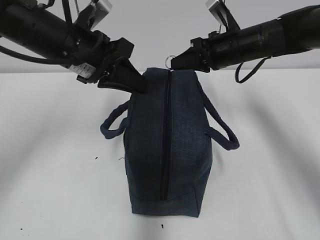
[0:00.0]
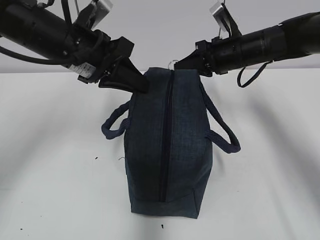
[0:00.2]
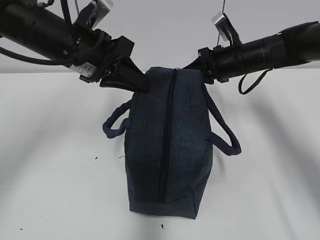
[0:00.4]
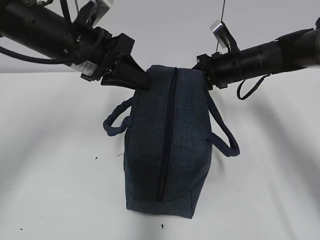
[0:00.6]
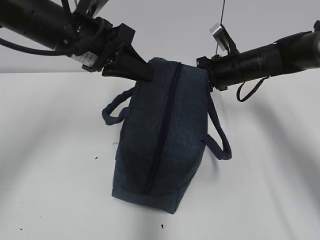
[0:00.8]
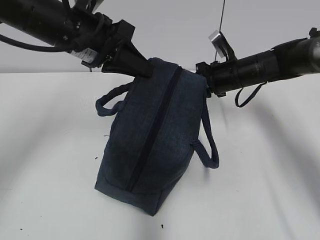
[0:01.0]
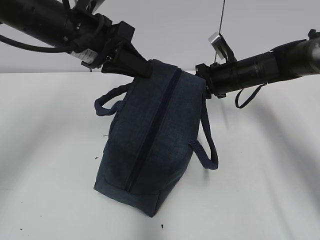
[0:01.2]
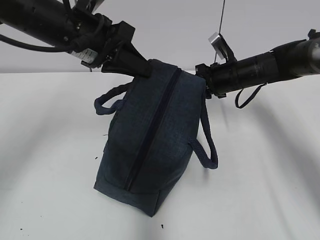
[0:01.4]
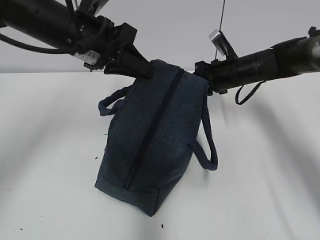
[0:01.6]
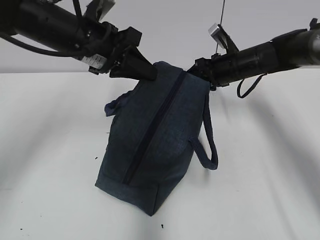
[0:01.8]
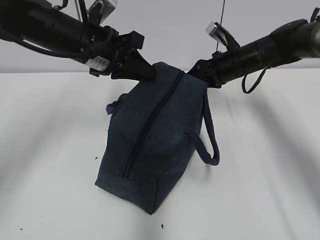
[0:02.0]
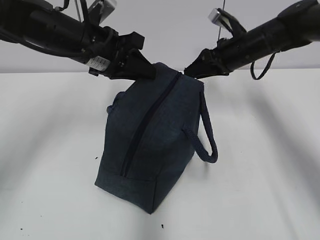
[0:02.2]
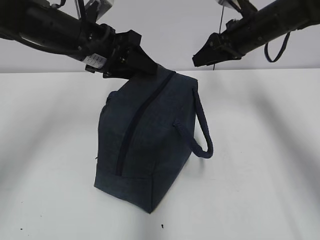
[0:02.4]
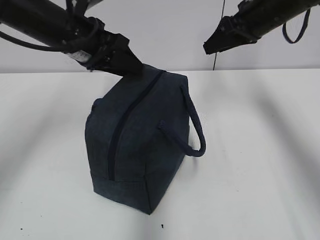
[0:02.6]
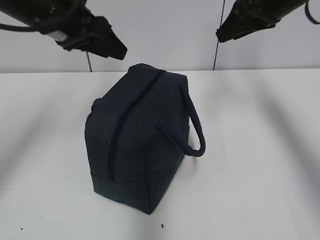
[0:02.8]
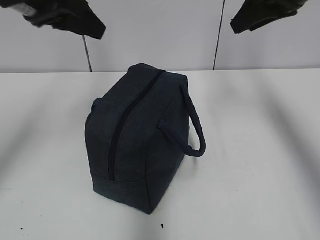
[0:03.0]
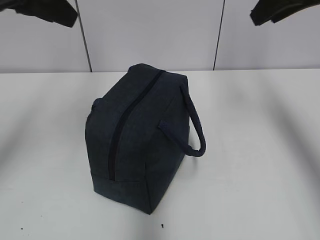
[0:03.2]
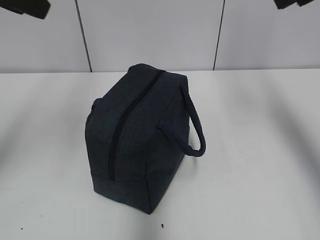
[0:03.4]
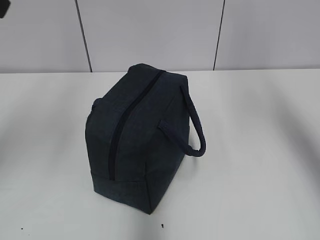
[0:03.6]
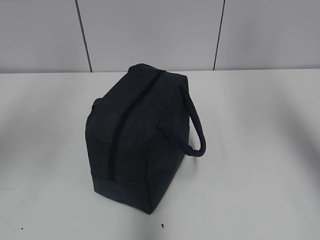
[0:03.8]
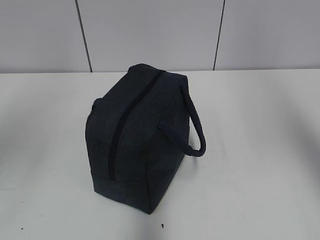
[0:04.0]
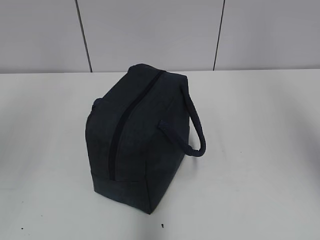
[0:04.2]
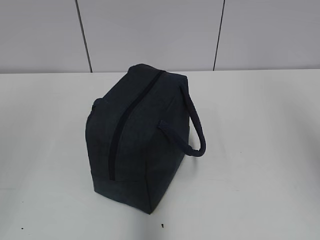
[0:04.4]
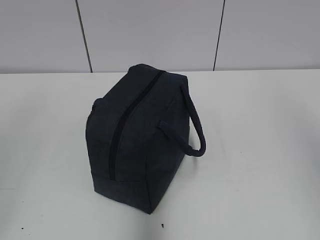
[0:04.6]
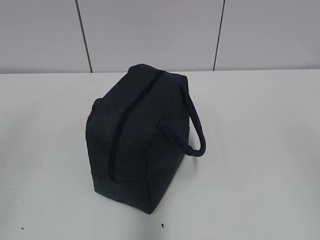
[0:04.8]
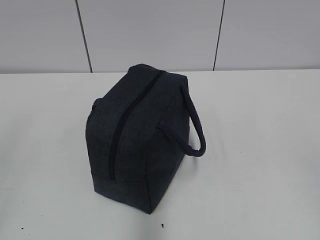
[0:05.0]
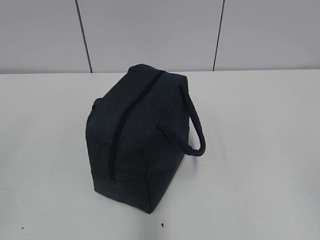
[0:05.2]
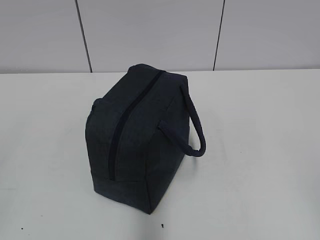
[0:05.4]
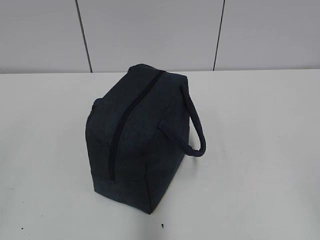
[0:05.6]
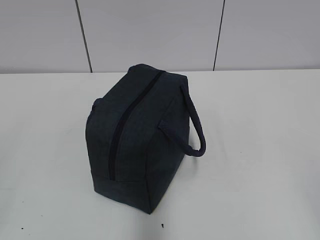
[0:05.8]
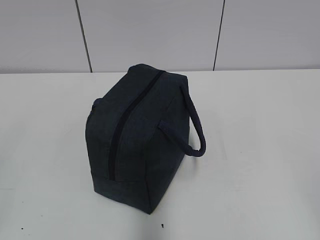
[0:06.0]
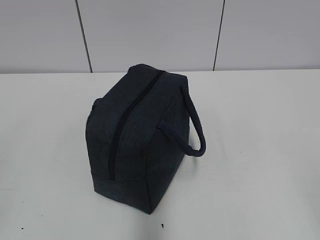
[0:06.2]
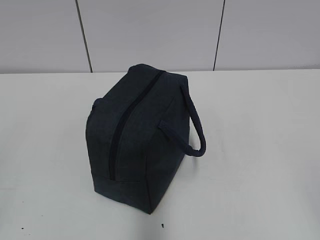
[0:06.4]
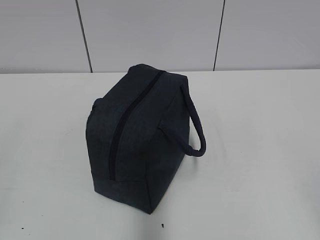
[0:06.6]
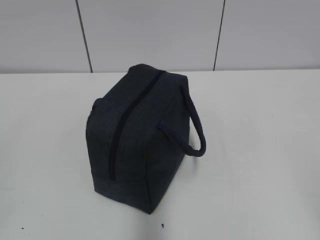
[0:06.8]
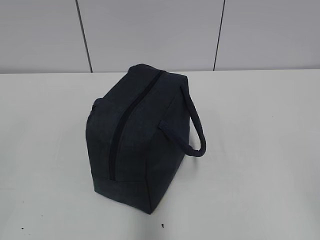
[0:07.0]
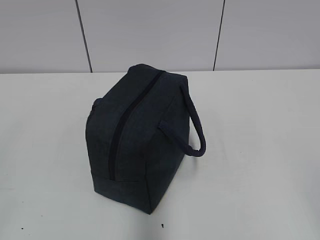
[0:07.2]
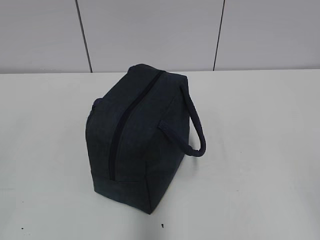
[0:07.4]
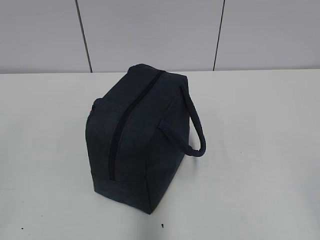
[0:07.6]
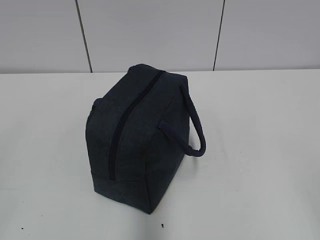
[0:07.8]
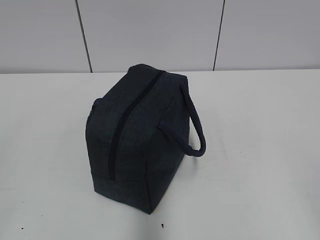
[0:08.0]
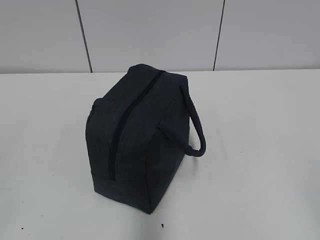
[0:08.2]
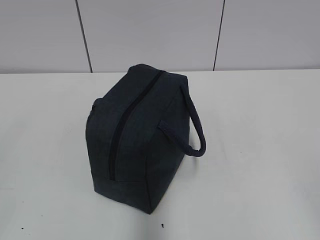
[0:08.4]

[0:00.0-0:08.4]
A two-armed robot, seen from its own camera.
0:00.0 to 0:01.4: The right gripper moves downward, about 5 cm.
0:01.4 to 0:02.8: The right gripper moves upward, roughly 20 cm, and opens, while the left gripper ends up about 5 cm from where it was, and opens.
0:02.8 to 0:04.2: The left gripper is displaced backward, upward and to the left by some 30 cm, while the right gripper goes approximately 35 cm backward and upward.
0:04.2 to 0:05.6: The right gripper is displaced downward and backward by about 30 cm.
0:07.0 to 0:08.4: Both grippers stay about where they are.

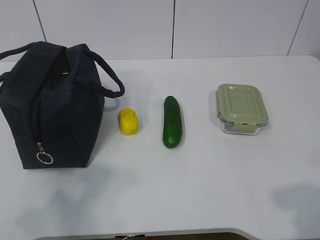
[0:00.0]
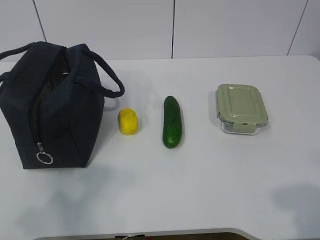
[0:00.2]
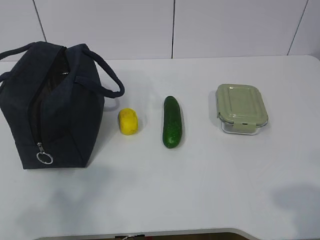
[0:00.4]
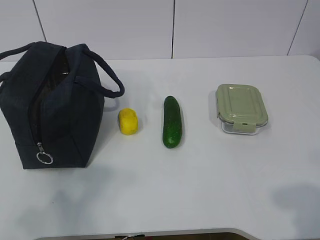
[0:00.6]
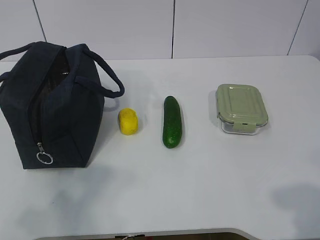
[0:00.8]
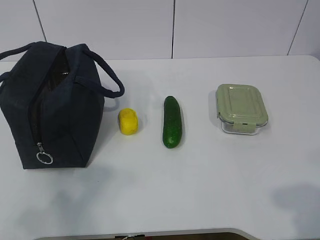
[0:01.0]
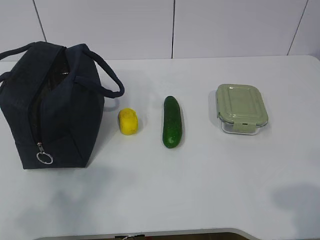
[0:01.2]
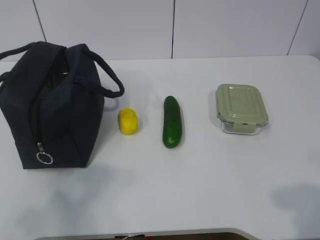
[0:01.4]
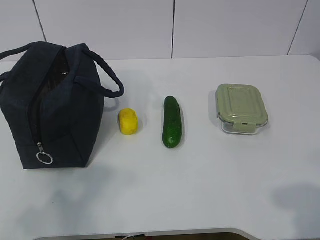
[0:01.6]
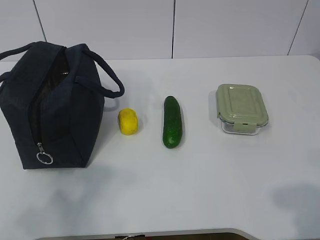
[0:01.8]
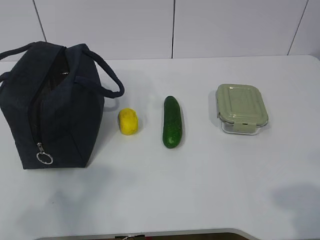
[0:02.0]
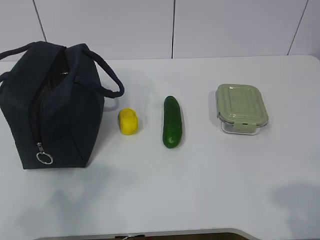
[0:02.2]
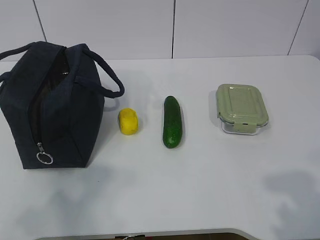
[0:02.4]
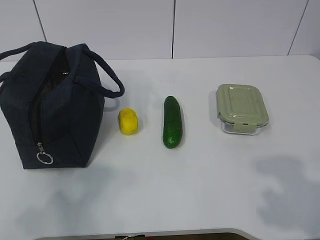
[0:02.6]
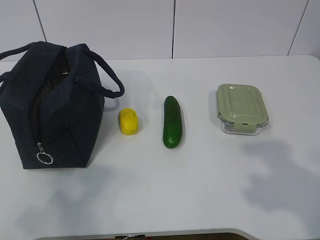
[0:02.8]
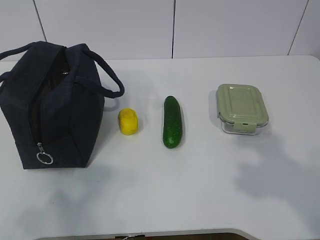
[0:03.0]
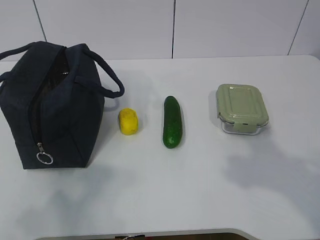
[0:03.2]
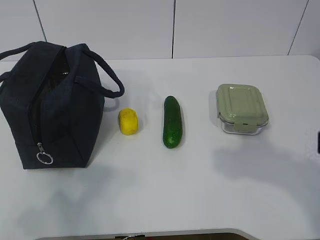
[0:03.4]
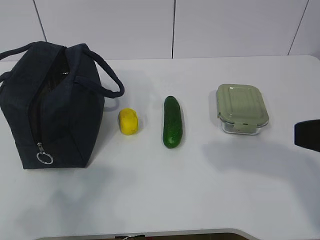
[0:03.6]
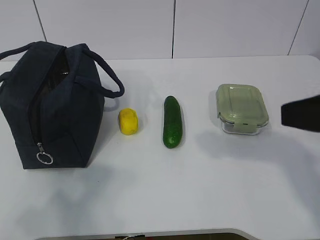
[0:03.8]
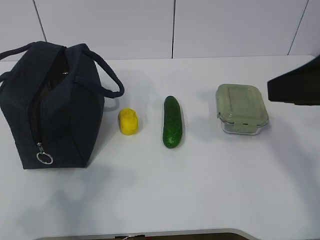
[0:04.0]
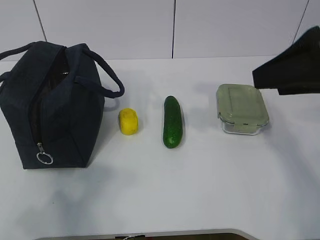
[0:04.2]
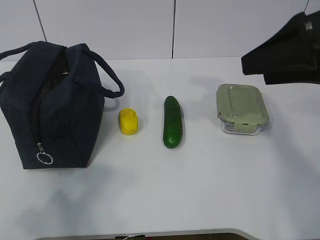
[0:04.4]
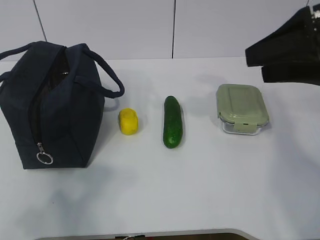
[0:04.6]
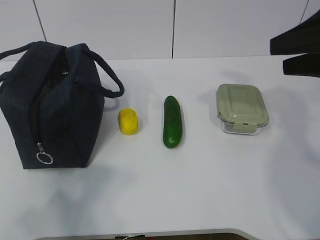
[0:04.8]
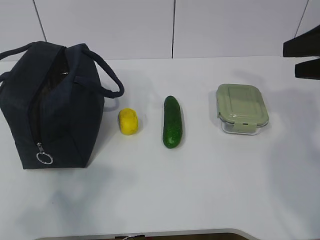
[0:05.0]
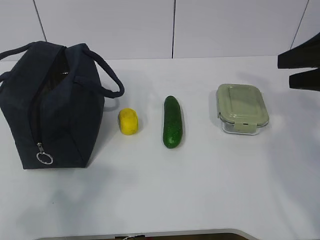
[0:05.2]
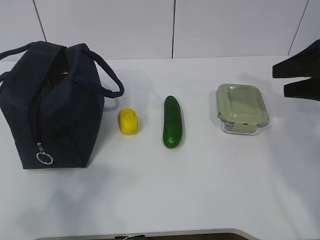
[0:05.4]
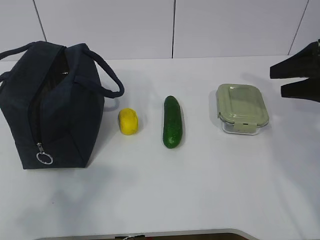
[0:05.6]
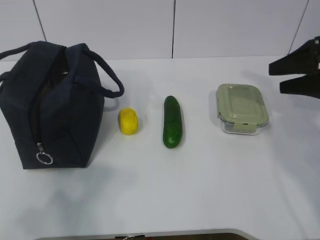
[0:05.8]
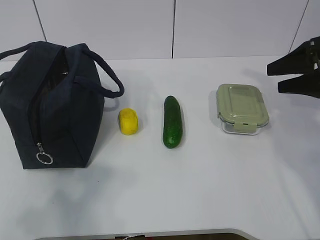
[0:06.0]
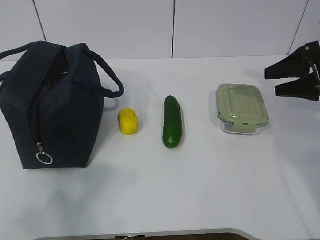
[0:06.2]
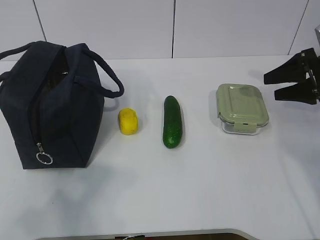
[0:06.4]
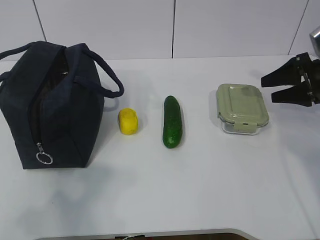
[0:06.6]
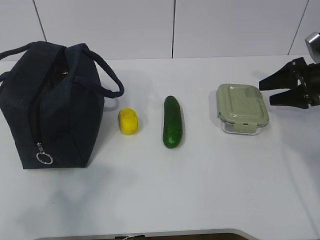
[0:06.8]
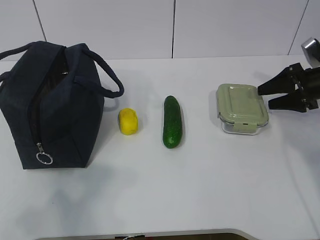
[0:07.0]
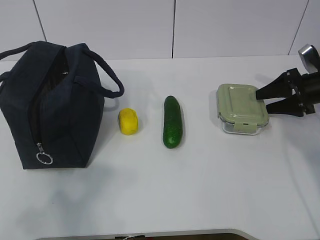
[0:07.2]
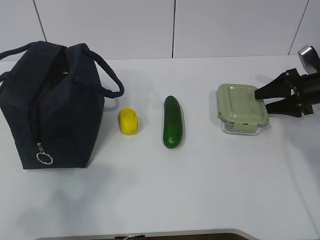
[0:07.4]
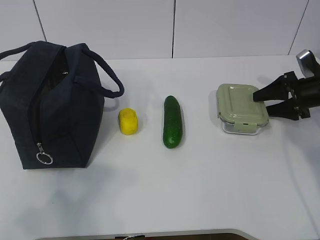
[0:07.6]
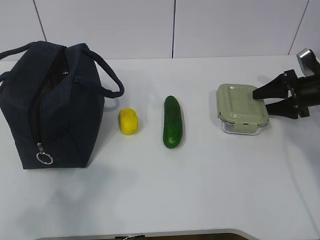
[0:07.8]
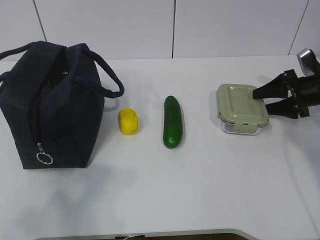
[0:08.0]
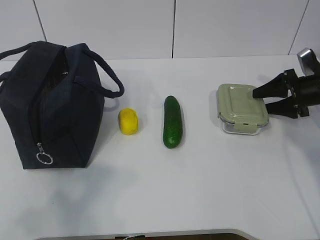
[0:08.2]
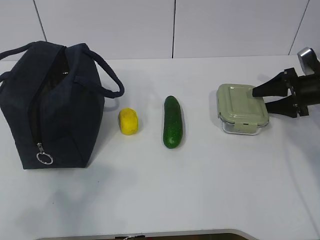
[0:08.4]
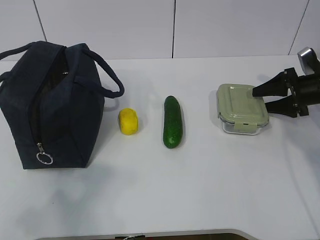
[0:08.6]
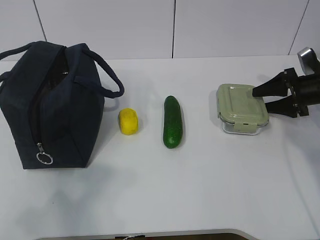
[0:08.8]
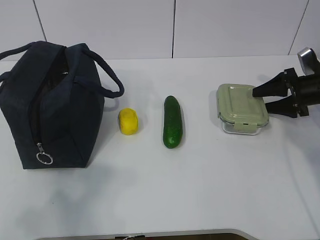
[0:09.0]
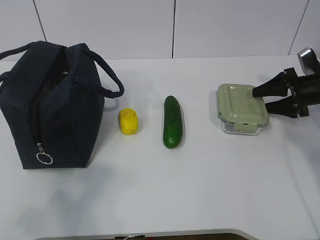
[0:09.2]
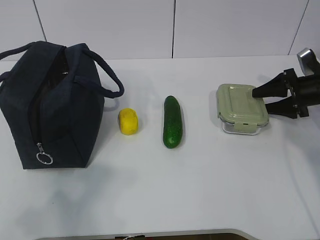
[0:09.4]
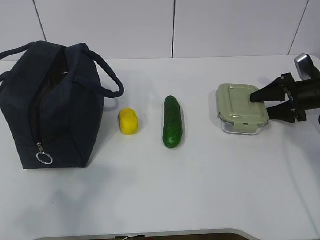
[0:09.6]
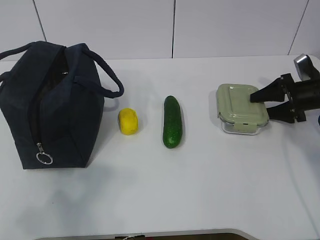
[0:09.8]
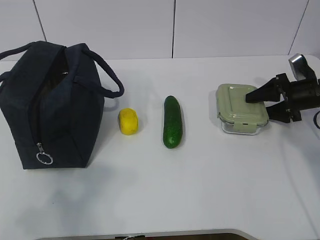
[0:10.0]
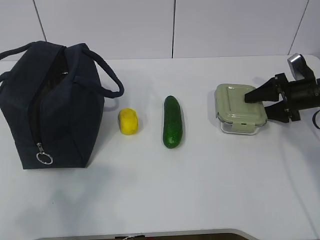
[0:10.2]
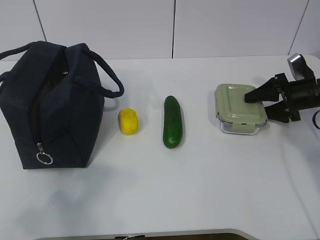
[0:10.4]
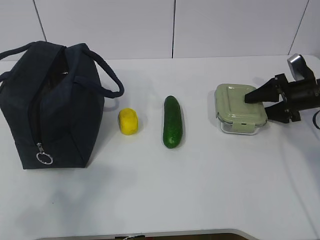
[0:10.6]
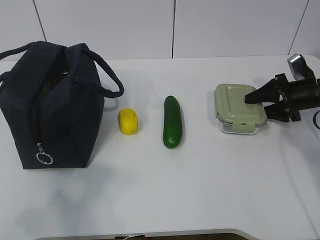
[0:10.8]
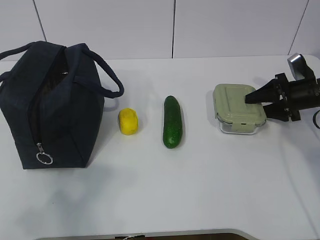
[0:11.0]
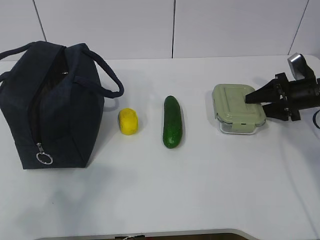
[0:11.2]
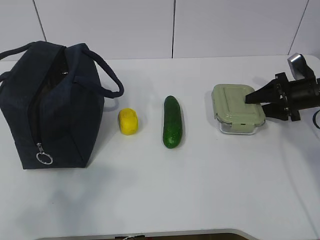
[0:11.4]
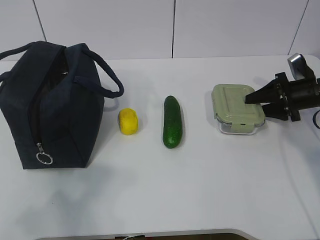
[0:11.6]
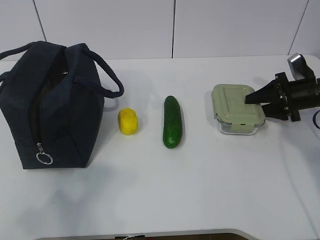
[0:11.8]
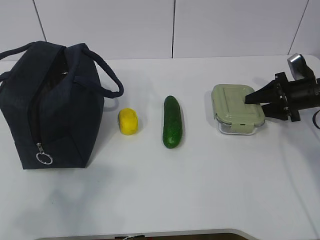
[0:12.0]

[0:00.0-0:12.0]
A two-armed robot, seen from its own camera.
Step, 0:00.0 to 0:11.6: Grab the lunch box with your right hand.
0:03.0 to 0:04.4: The right gripper is displaced forward by roughly 15 cm.
0:04.4 to 0:06.0: The right gripper shifts about 20 cm forward, to the right and downward.
0:06.0 to 0:07.6: The right gripper heads downward and forward, covering approximately 15 cm.
0:07.6 to 0:09.0: Both grippers stay about where they are.
0:09.0 to 0:10.4: There are only small adjustments of the grippers.
0:10.4 to 0:12.0: Neither gripper changes place.

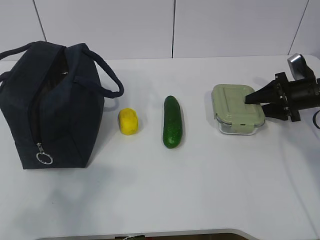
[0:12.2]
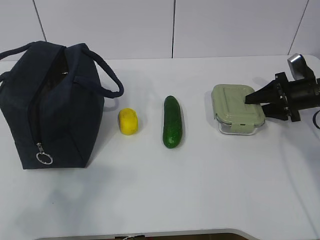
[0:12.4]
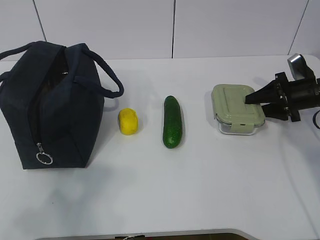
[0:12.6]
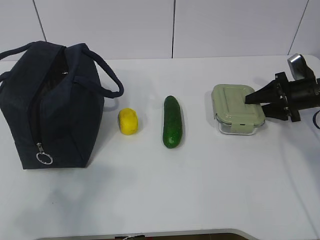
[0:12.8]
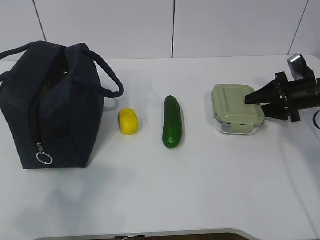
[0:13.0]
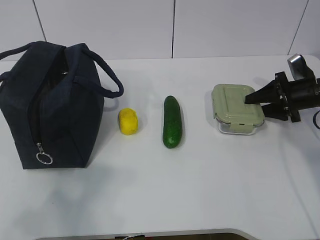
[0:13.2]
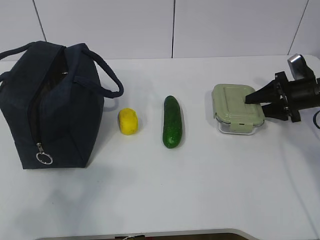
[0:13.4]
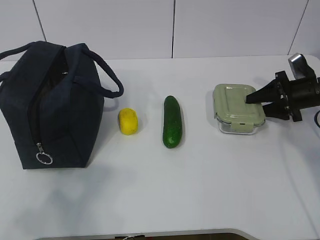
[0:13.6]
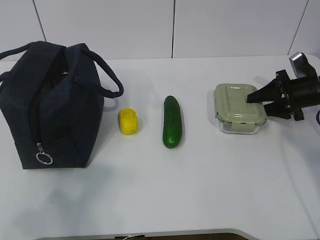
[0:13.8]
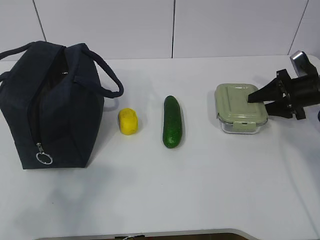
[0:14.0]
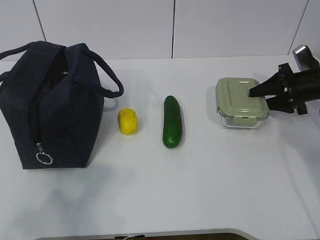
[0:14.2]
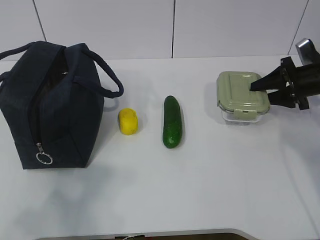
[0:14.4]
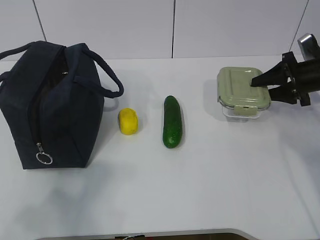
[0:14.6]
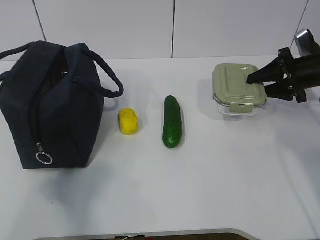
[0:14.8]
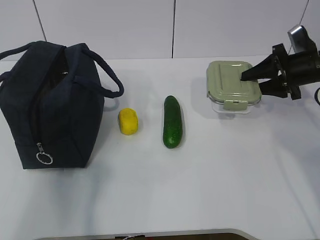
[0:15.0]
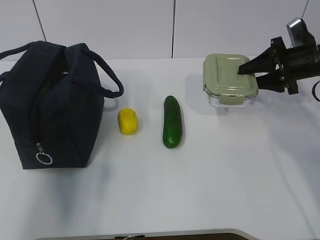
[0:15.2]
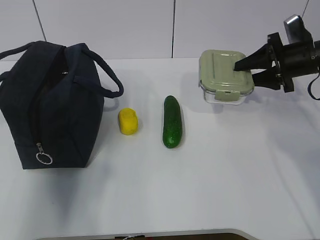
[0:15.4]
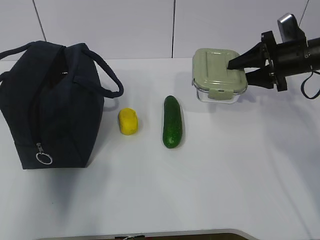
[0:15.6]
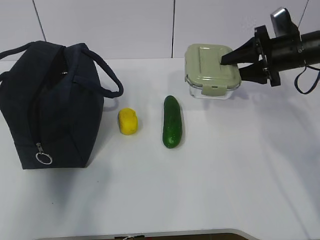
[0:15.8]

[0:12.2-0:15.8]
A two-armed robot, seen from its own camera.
Step, 0:12.2 to 0:15.6: Grab the lunch bag with your left hand.
0:12.2 to 0:14.0: Both grippers stay put.
0:14.0 to 0:15.8: The left gripper travels forward by about 25 cm. The right gripper heads upward and to the left, covering approximately 10 cm.
